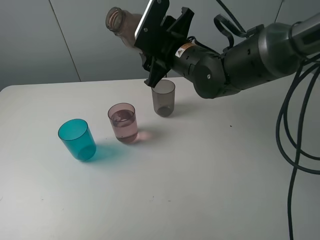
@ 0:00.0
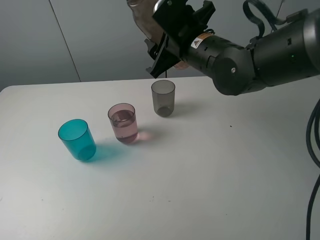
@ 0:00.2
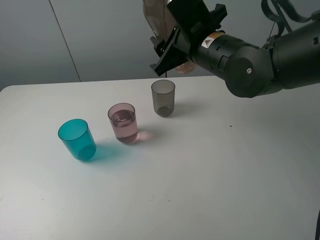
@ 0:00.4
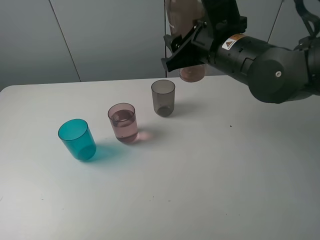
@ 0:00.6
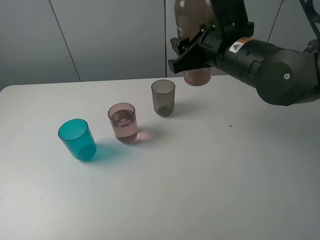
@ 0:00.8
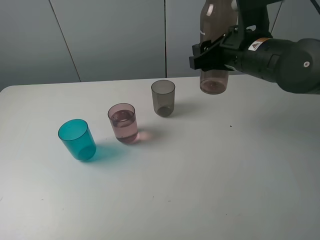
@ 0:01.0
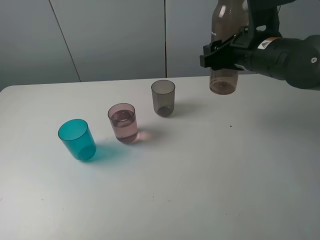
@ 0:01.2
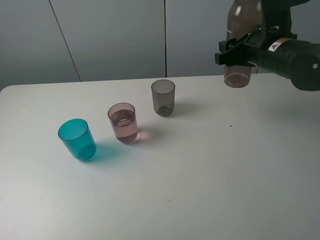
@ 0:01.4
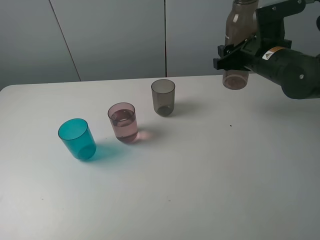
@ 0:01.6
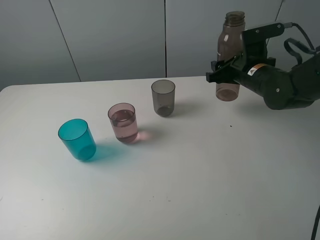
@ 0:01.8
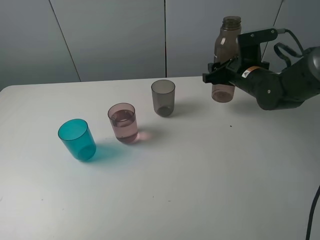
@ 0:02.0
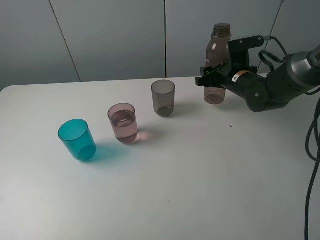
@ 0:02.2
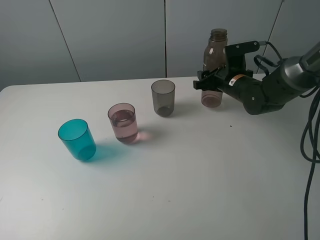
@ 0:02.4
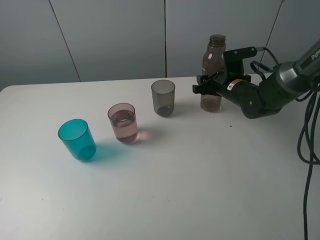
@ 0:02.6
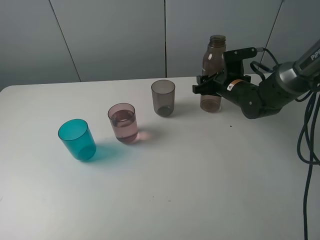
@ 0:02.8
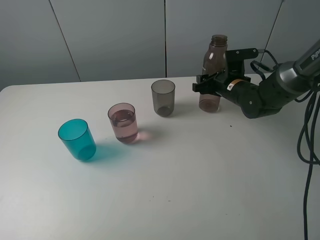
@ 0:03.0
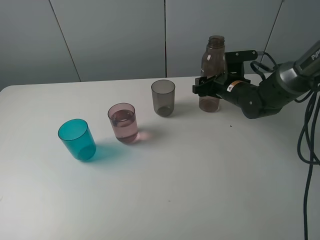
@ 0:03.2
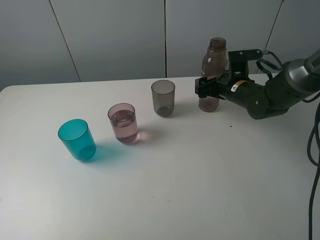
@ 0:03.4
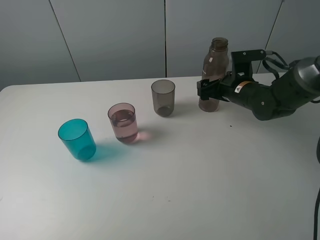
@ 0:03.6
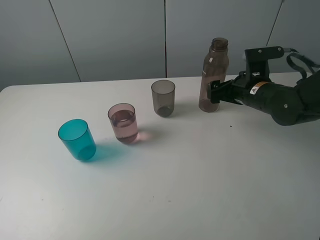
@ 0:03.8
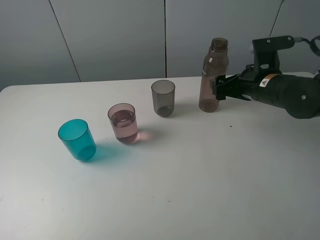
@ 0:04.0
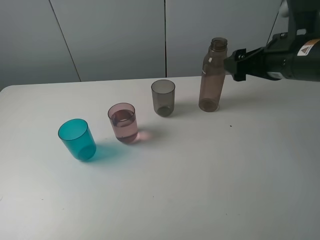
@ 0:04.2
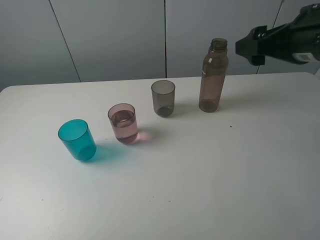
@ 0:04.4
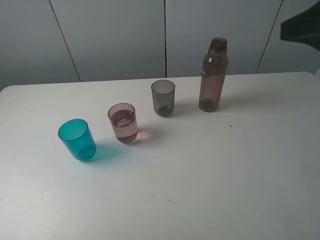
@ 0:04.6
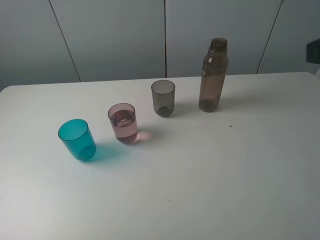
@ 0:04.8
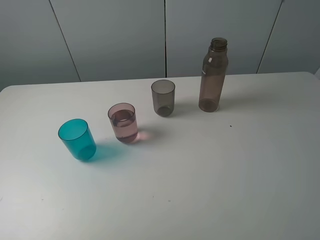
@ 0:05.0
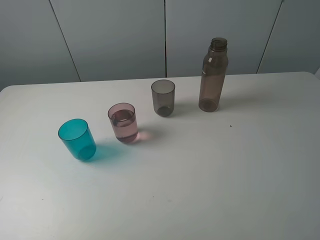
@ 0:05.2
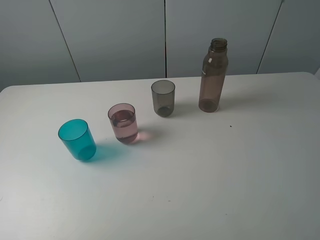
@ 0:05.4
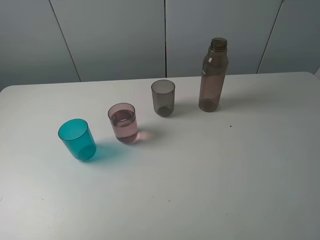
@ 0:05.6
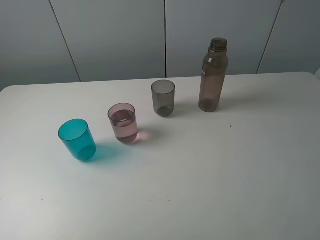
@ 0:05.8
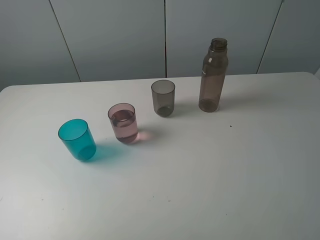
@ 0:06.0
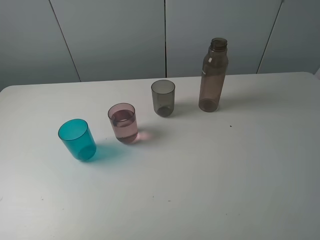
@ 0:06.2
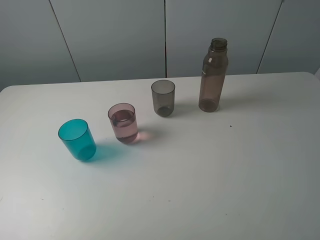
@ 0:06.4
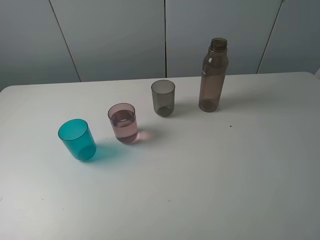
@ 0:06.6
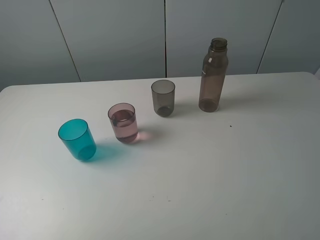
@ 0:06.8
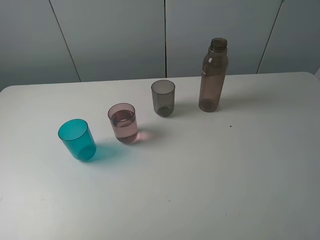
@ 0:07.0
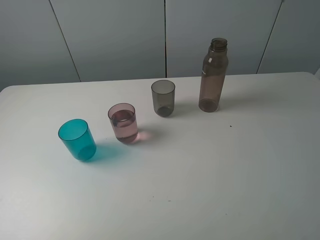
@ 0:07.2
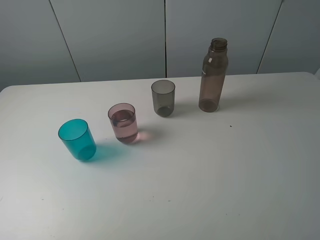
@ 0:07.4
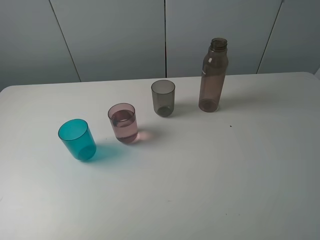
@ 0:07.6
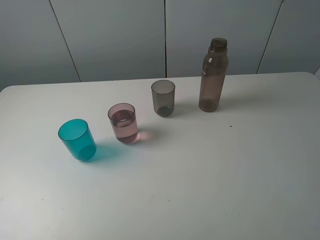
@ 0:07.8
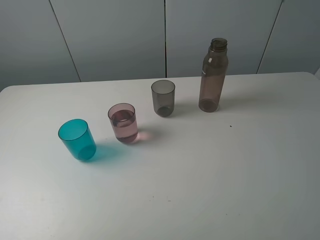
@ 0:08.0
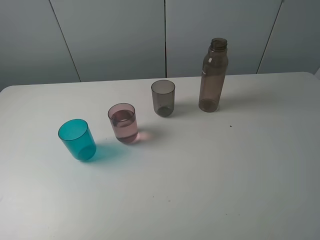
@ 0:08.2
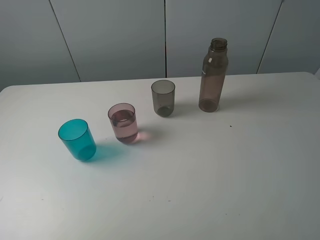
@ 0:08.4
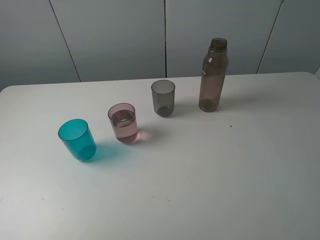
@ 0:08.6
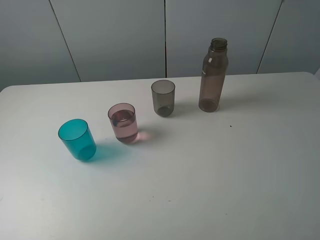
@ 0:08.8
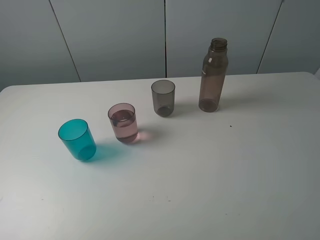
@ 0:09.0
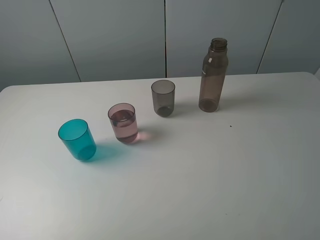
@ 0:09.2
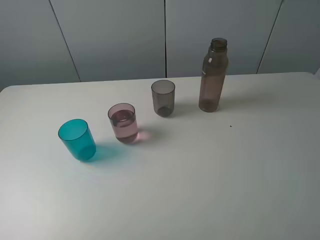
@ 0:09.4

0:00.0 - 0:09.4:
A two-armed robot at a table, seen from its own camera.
Task of the whole recording: pick up the bottle filled with water and pour water into the middle cup of the three cups.
Step, 0:00.0 - 0:04.0: Place the brown bottle with the right gripper.
0:00.0 - 0:01.6: The right gripper travels to the right by about 15 cm.
0:01.6 - 0:03.2: The right gripper goes approximately 10 cm downward, and opens.
0:03.2 - 0:04.8: The right gripper moves backward and upward, roughly 40 cm, and opens.
0:07.8 - 0:09.4: Both grippers stay put.
